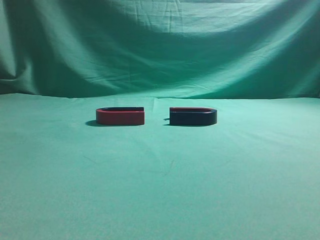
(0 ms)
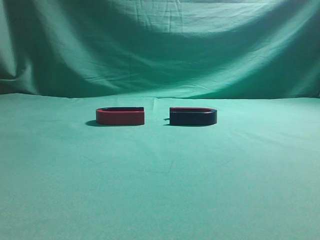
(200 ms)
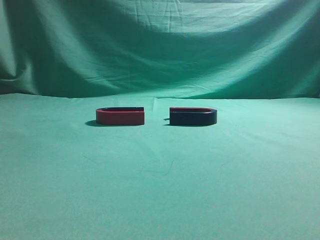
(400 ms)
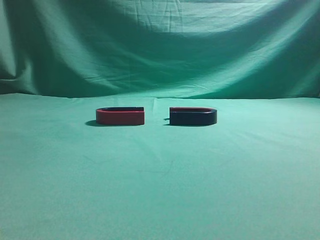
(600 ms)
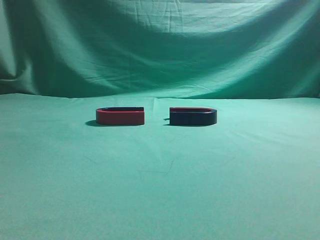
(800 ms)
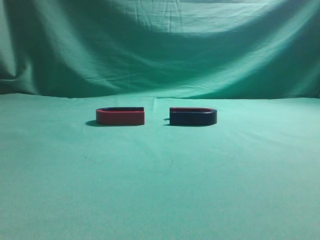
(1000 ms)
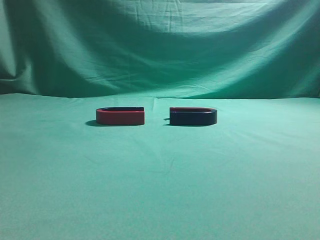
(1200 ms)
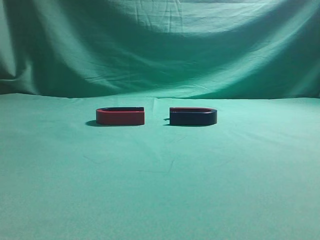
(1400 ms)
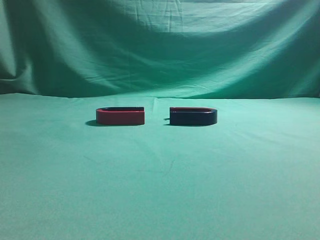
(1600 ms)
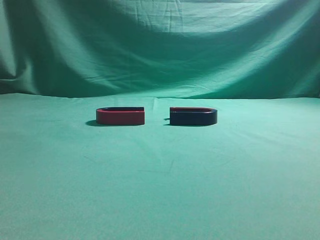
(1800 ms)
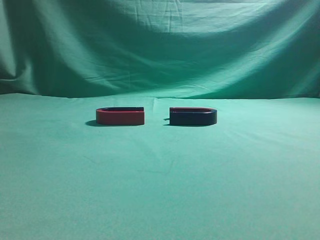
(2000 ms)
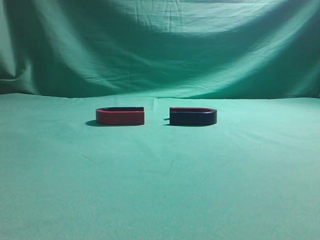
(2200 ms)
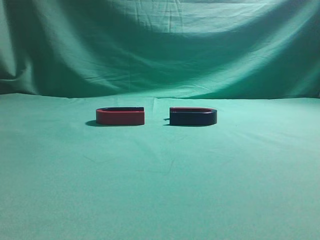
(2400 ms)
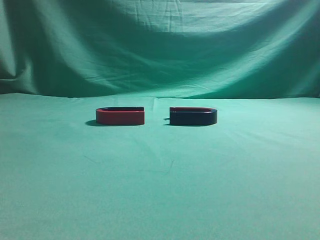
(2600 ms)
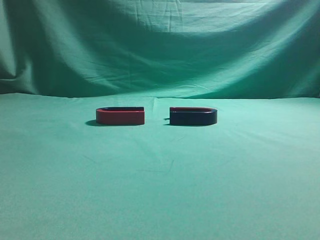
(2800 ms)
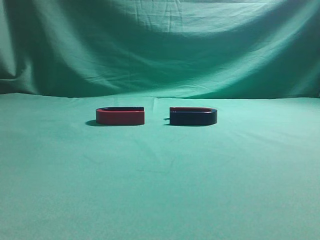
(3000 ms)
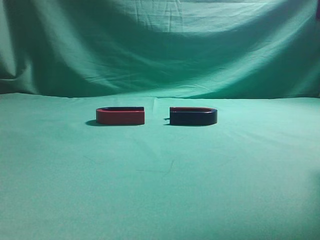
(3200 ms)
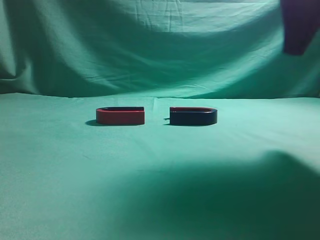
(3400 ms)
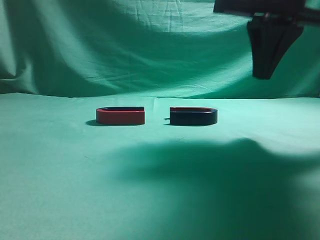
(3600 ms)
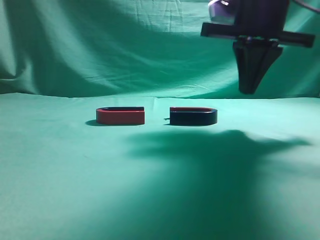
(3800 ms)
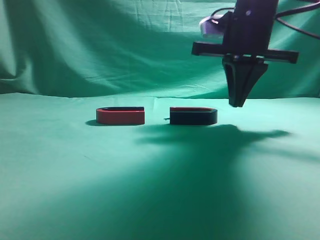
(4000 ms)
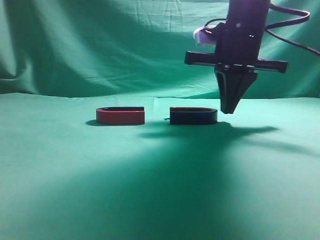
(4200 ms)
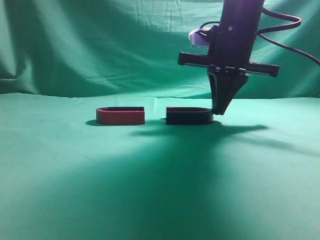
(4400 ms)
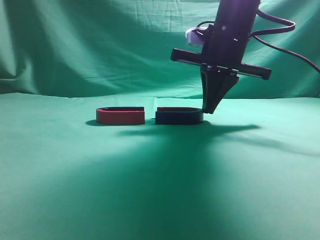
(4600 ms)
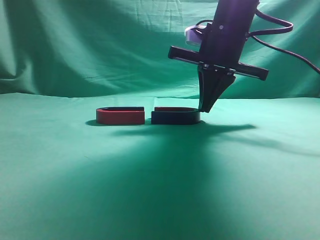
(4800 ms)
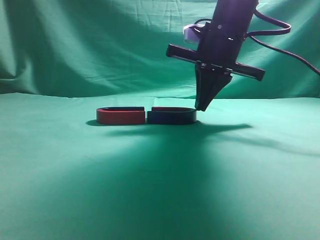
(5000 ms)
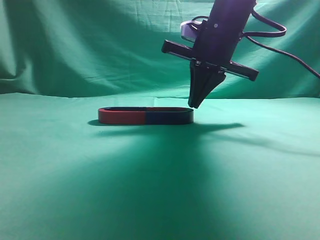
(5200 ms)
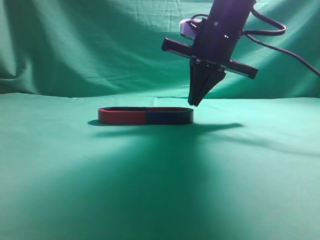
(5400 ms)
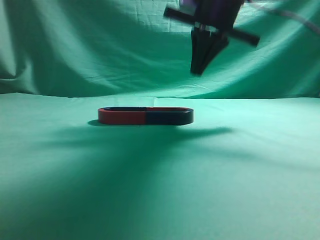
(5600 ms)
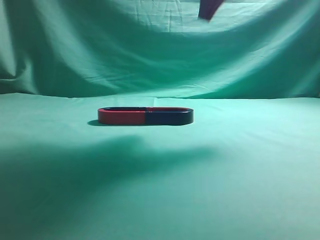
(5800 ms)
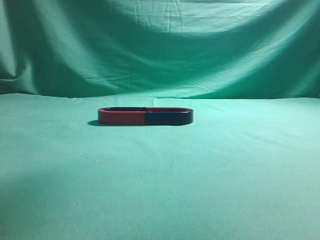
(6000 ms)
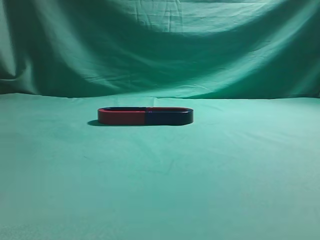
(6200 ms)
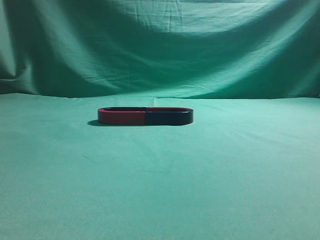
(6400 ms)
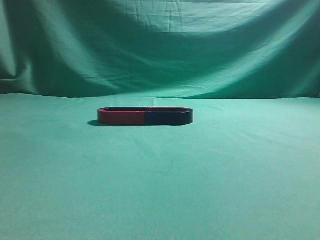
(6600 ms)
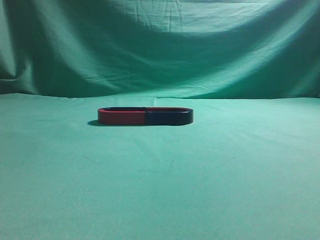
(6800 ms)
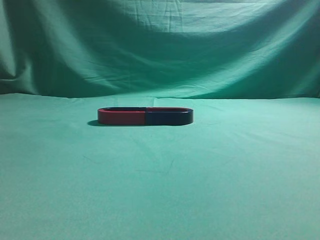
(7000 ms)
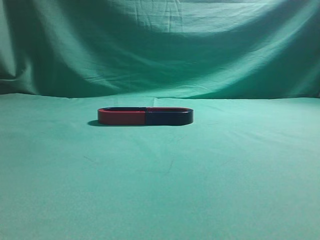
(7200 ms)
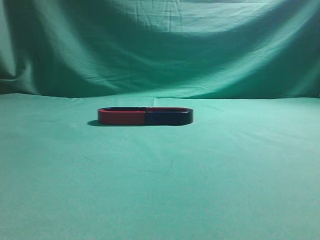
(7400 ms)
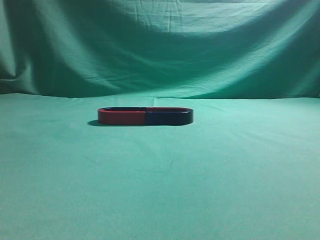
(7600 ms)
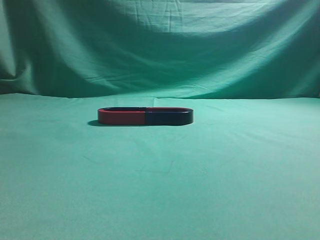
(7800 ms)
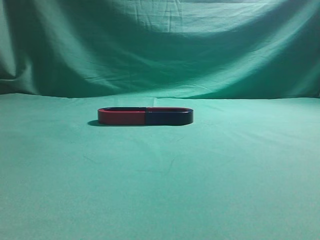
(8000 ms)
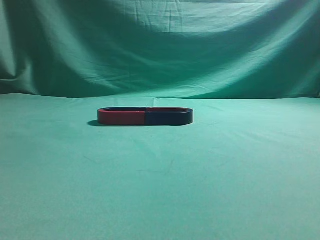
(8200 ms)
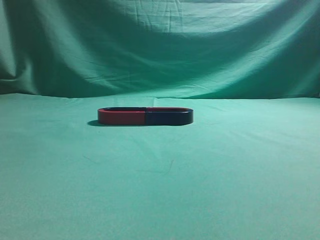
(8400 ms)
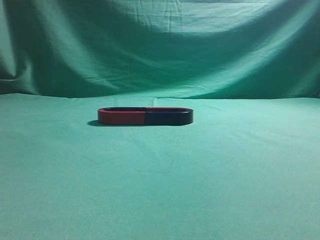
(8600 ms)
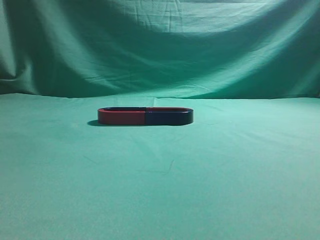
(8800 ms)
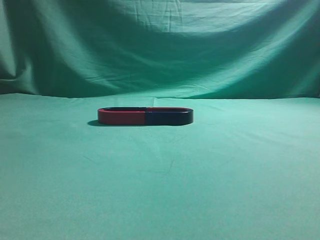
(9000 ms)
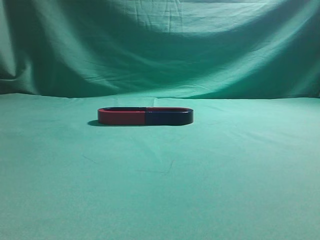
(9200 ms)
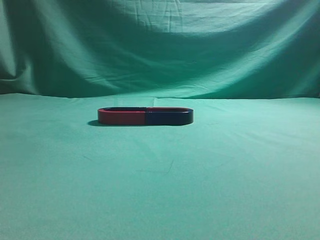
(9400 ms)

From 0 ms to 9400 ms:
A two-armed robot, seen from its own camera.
Task of the whole recording: push the magnet on the table from its original position to another position.
Step, from 0 ms to 5200 ms: Push the magnet on the right to connect the magnet on the left.
From 1600 ms to 3200 ms: The right gripper moves forward and upward, about 20 cm.
From 3200 ms to 4800 ms: The right gripper goes roughly 20 cm forward, downward and to the left.
From 4800 ms to 6200 ms: The right gripper goes some 30 cm upward and backward.
From 6200 ms to 7800 ms: The right gripper shifts some 30 cm backward, downward and to the right.
